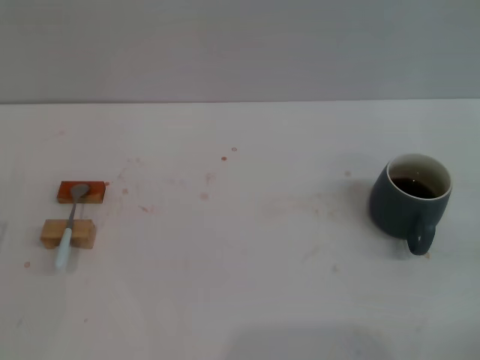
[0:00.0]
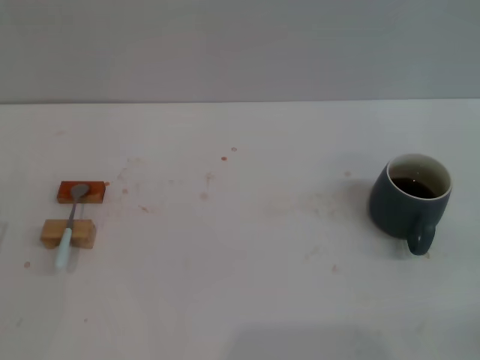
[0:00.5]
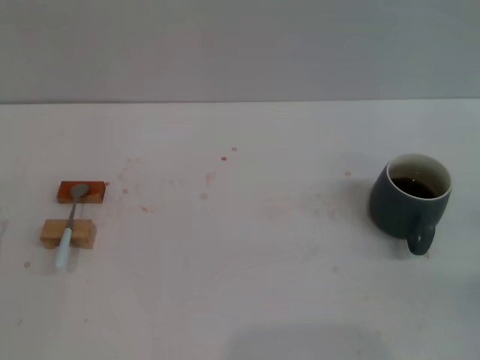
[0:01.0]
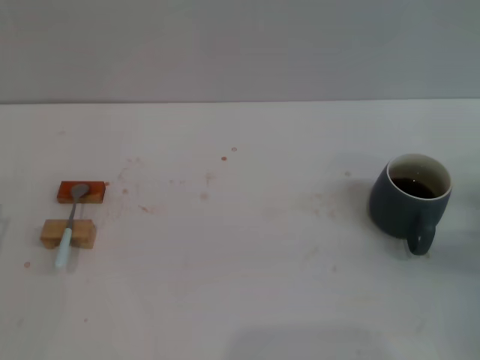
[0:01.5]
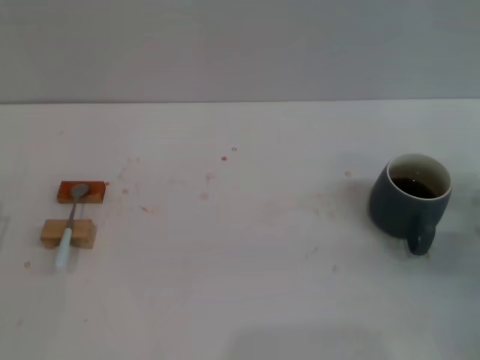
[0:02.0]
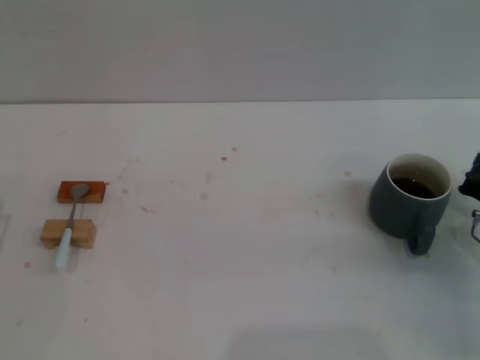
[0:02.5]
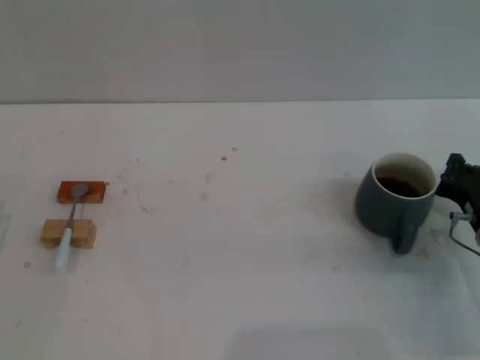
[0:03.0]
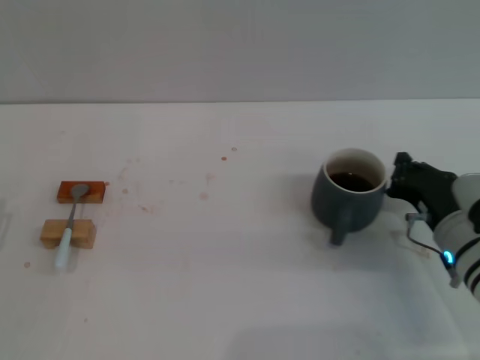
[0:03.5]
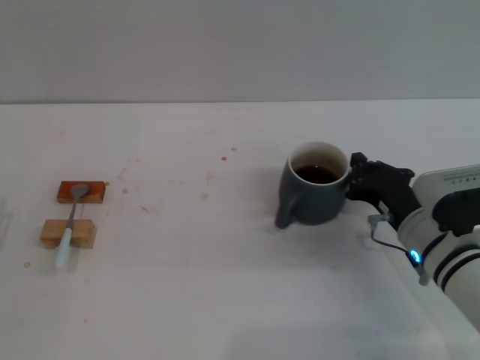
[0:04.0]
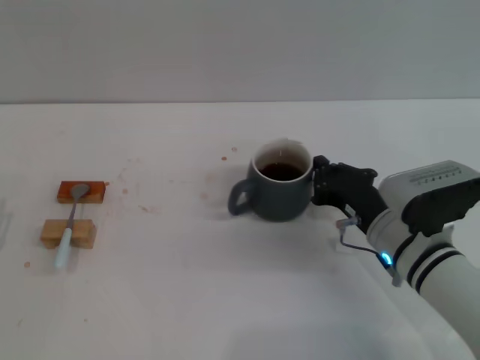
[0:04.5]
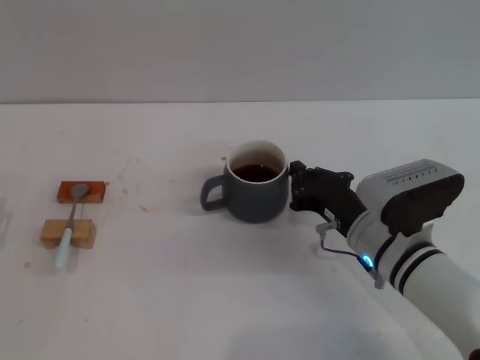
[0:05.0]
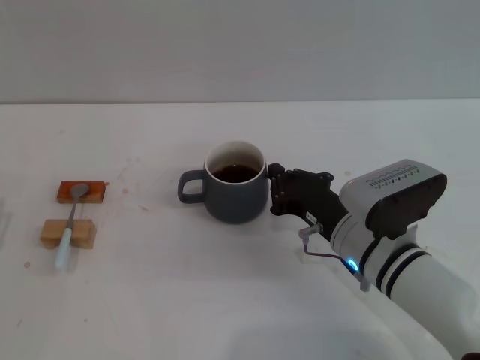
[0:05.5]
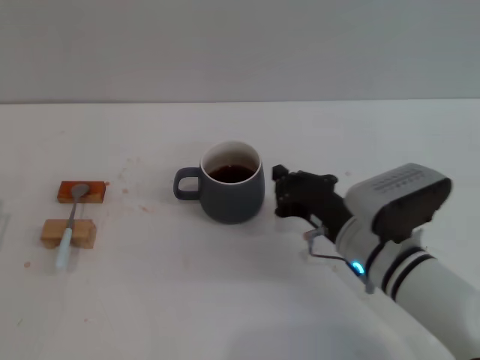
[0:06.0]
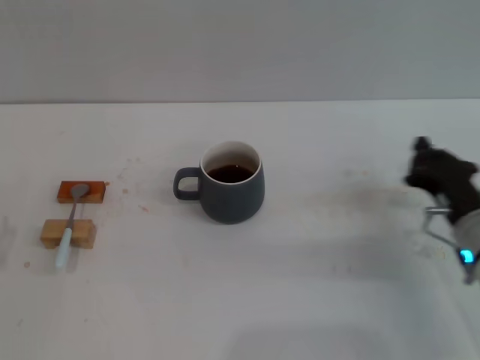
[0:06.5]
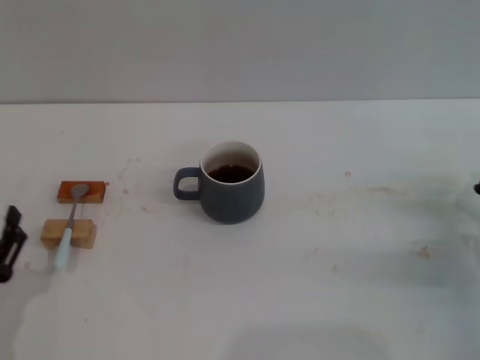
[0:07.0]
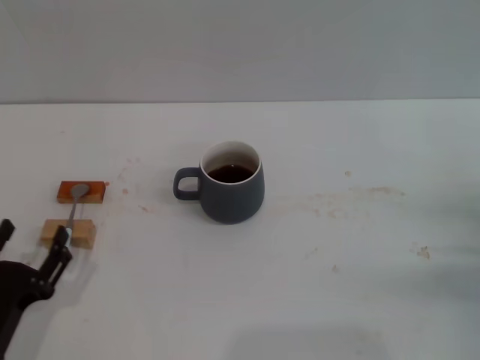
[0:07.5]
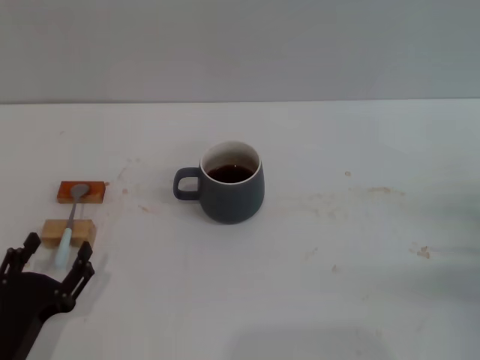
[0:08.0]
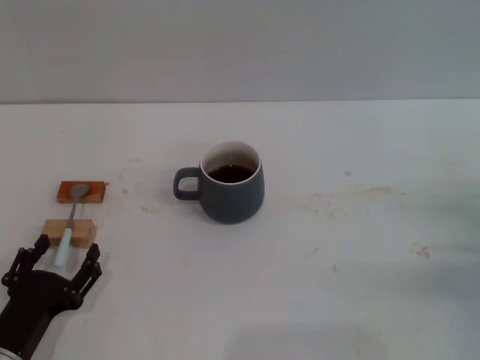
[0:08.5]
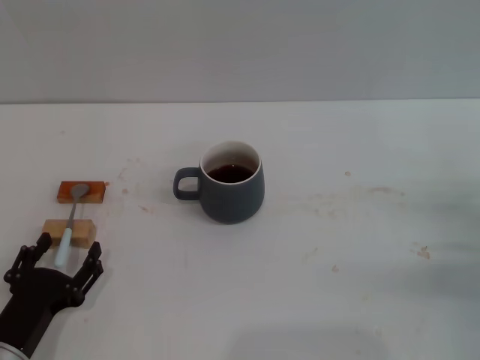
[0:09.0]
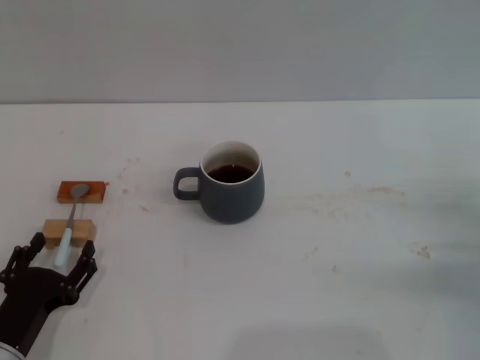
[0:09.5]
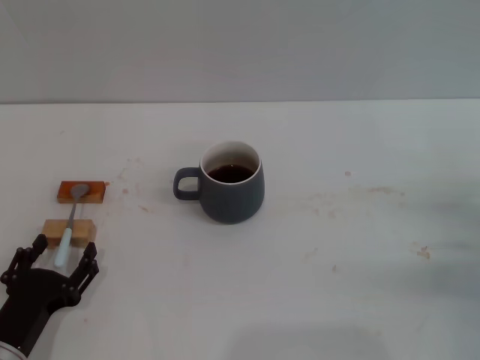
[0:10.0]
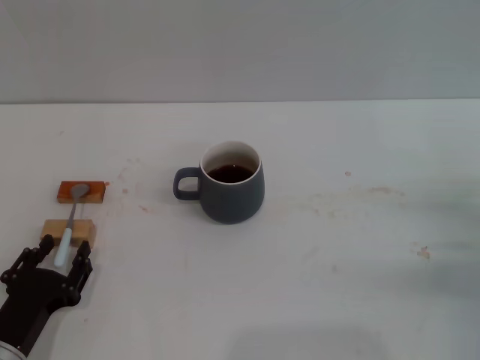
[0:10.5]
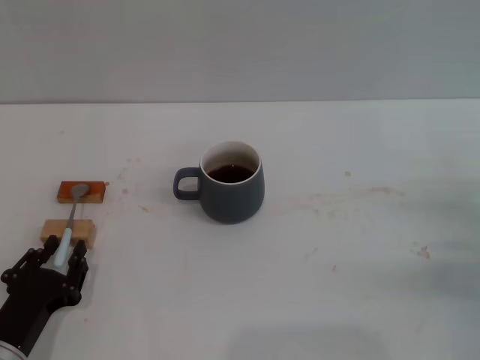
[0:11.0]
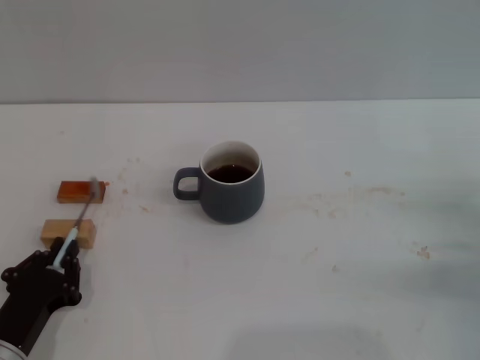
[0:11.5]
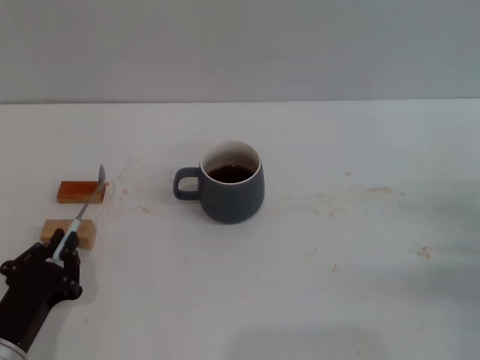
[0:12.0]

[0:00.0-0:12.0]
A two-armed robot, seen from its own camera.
Task of the whole recording: Move the grey cup to the center, lift the blue spoon, stir it three times in the cup, and put the spoon into the cup.
Step, 0:00.0 to 0:06.0: Move the cup with coffee to the center of view with the right gripper.
0:00.0 to 0:02.0: The right gripper moves forward and to the left, roughly 10 cm.
0:02.0 to 0:04.0: The right gripper goes roughly 10 cm to the left.
0:04.0 to 0:06.0: The right gripper is displaced to the left by roughly 5 cm.
0:06.0 to 0:08.0: The right gripper moves to the right, about 20 cm. The left gripper goes approximately 10 cm to the right.
0:08.0 to 0:10.0: There are only small adjustments of the grippers.
0:10.0 to 0:12.0: The left gripper closes up.

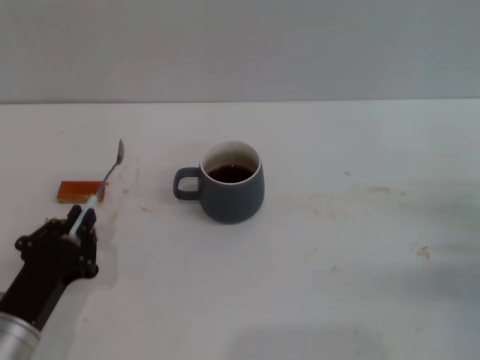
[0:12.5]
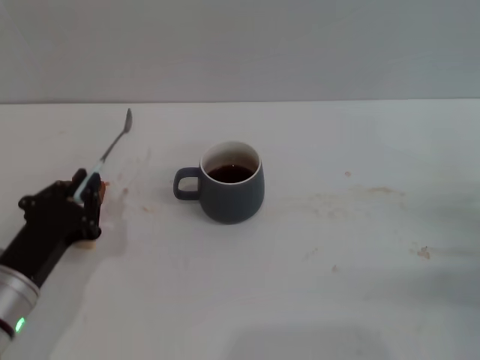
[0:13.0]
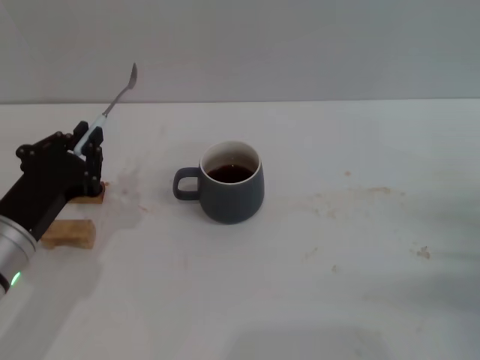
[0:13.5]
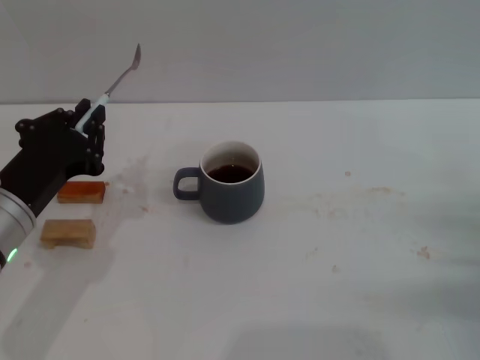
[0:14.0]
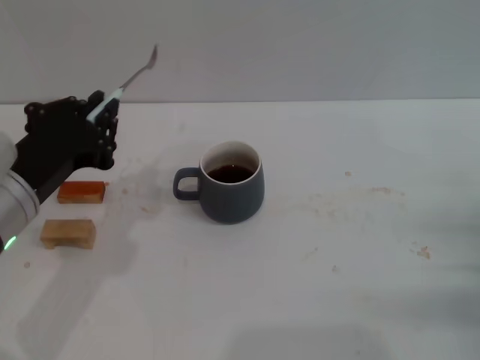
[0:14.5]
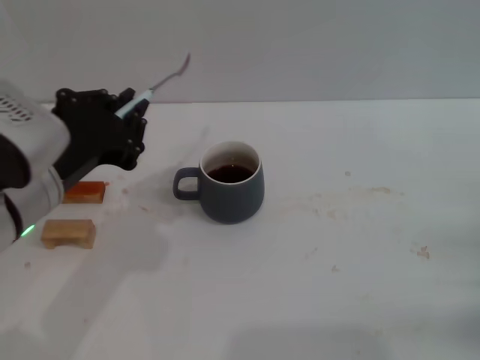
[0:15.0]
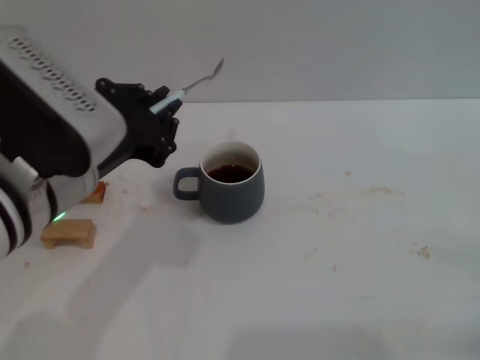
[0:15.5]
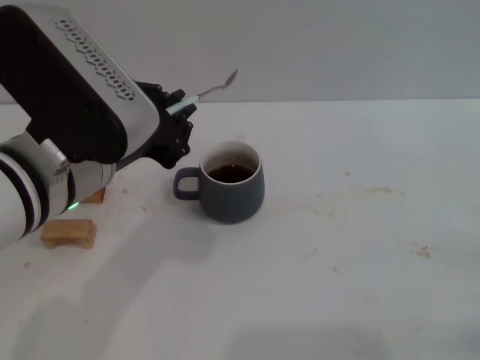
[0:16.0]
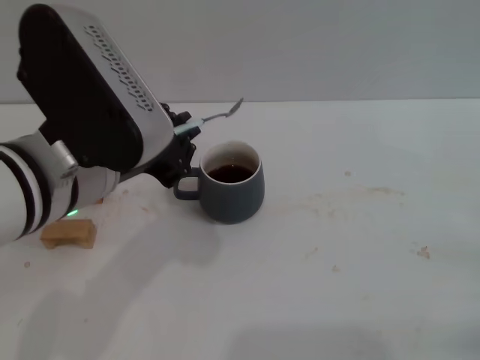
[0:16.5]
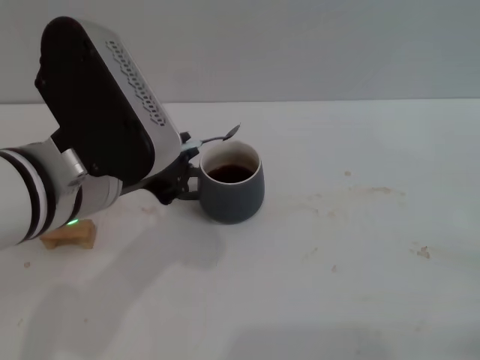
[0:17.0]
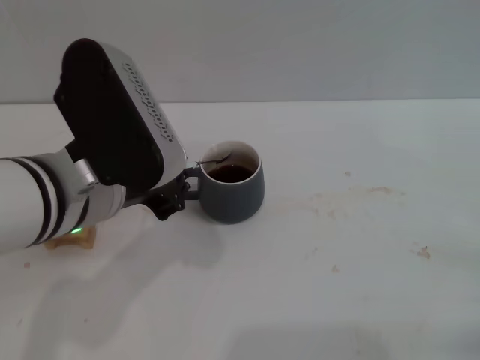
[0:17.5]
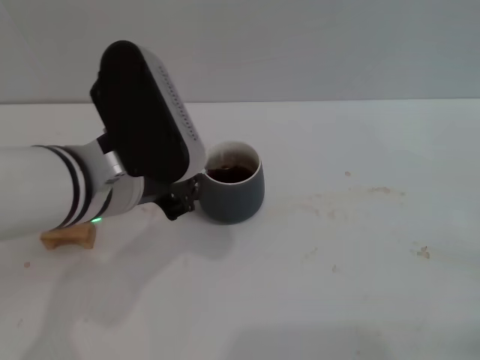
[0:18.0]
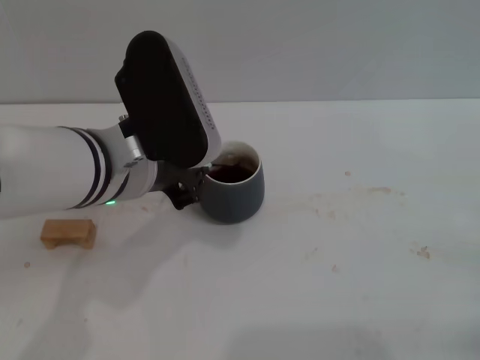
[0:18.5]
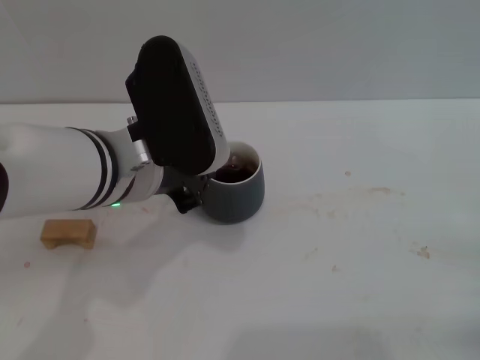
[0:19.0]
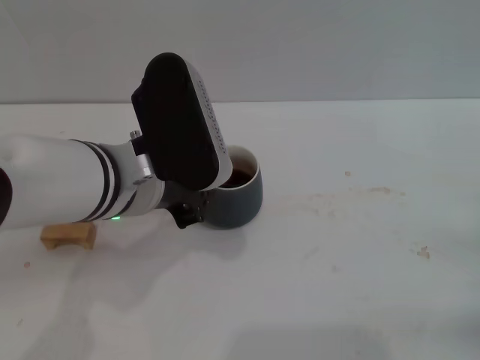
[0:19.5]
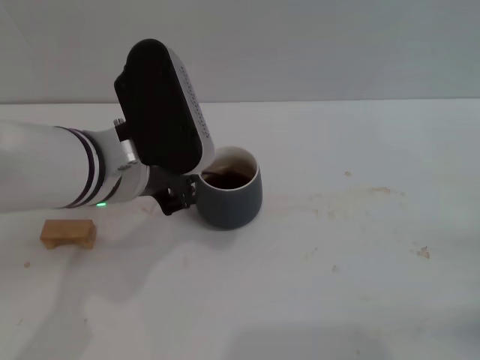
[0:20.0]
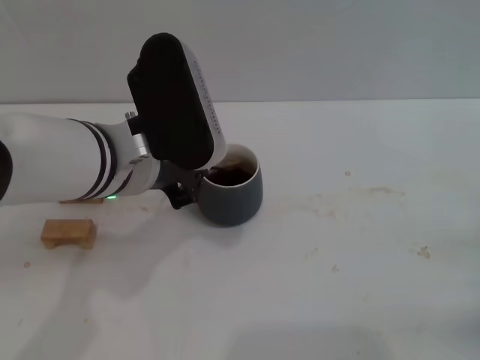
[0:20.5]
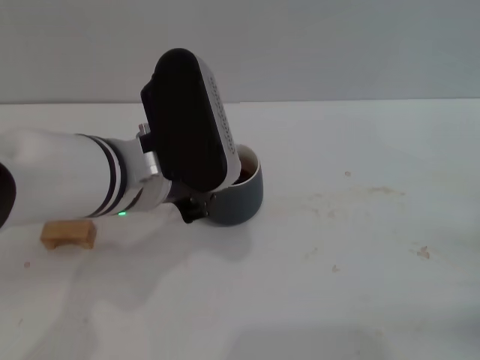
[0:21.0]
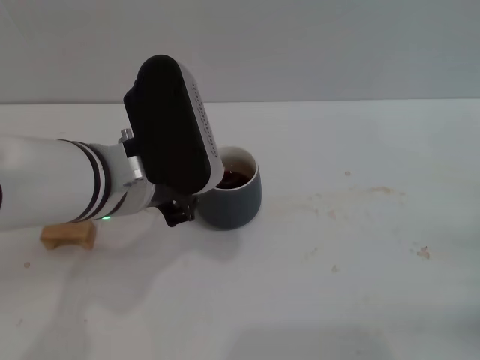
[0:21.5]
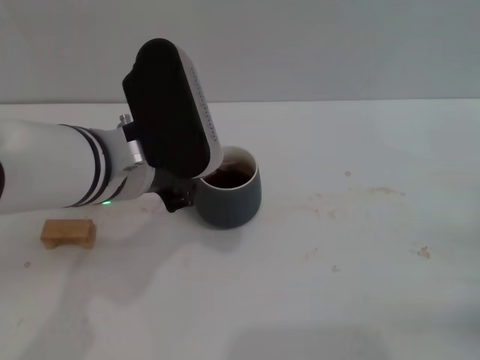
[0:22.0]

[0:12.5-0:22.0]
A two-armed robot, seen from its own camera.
Task of the whole recording: Move the grey cup to the center, lift the blue spoon, stir it three times in the cup, and put the spoon into the cup.
0:12.5 to 0:14.5: The left gripper heads upward, covering about 15 cm.
0:14.5 to 0:16.5: The left gripper goes about 10 cm to the right and upward.
0:16.5 to 0:18.0: The grippers move only a little.
0:18.0 to 0:22.0: The grippers move only a little.

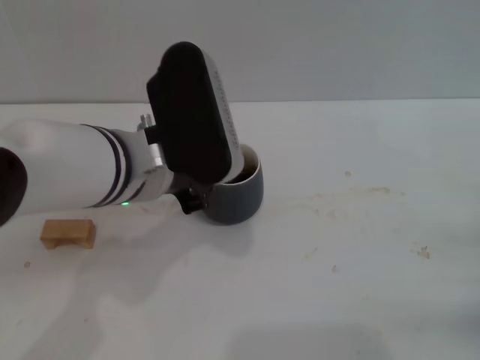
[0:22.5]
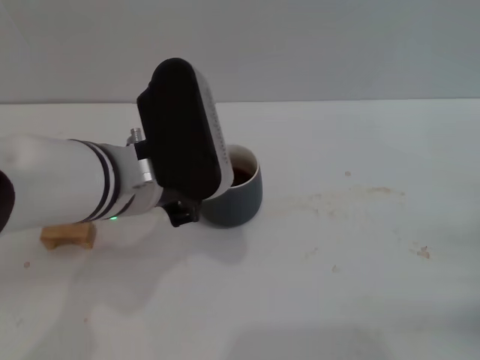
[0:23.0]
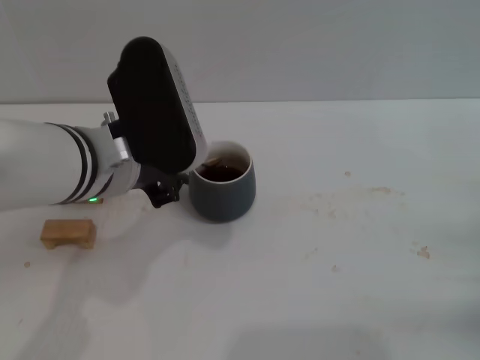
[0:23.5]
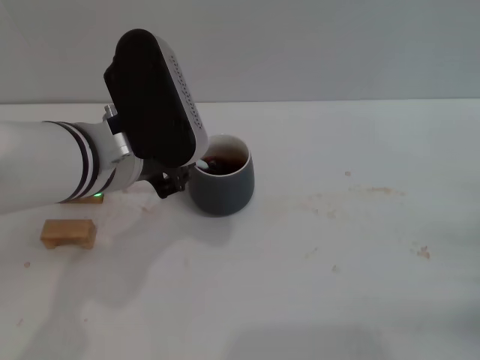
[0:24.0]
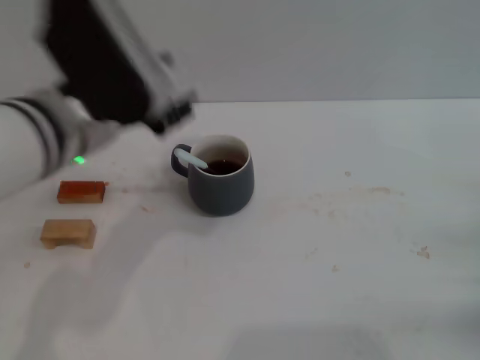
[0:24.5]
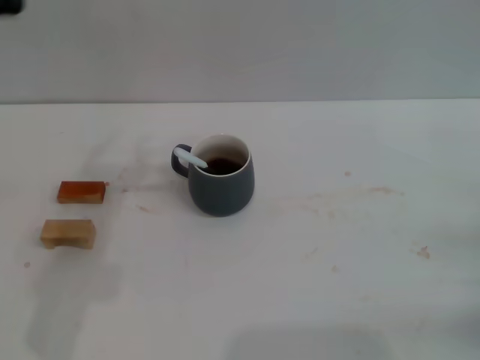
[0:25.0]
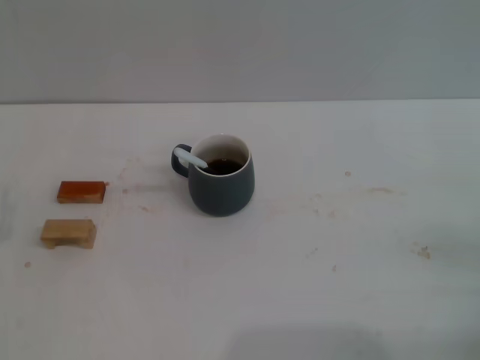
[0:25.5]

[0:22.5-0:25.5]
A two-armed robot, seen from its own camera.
Task of the whole recording: Move the grey cup to the center, lift the blue spoon, stir it three times in the cup, and put the spoon into the cup.
0:22.5 to 0:24.0: The grippers move only a little.
0:24.0 to 0:25.5: The left gripper is displaced to the left, downward and backward by roughly 25 cm, and opens up.
